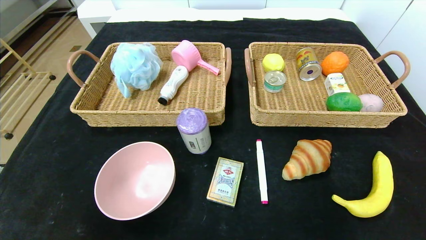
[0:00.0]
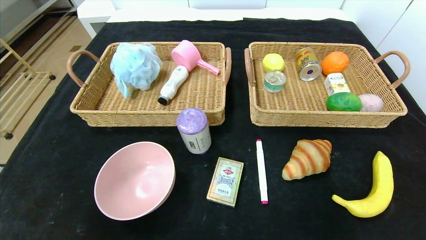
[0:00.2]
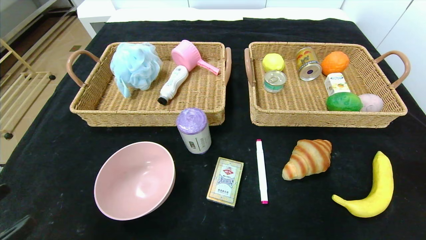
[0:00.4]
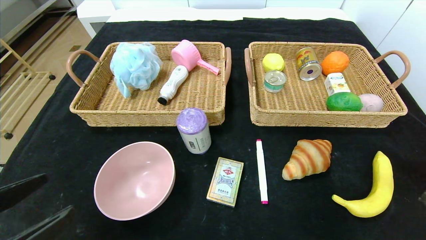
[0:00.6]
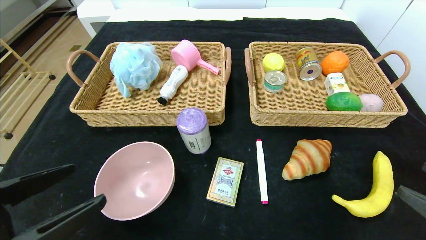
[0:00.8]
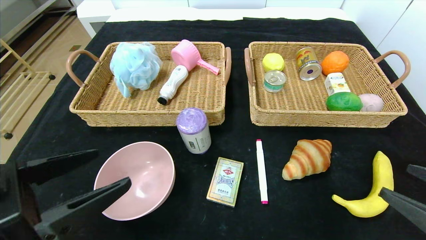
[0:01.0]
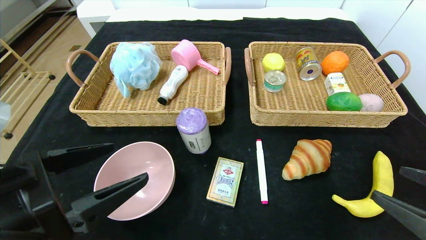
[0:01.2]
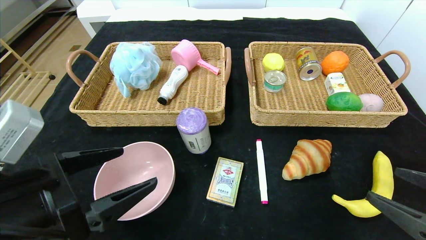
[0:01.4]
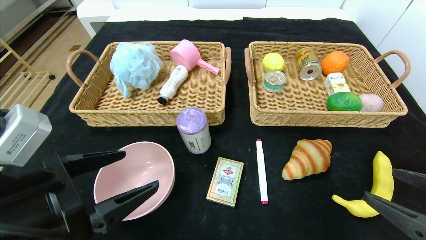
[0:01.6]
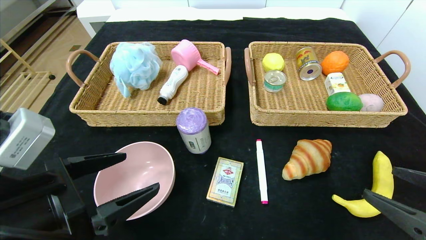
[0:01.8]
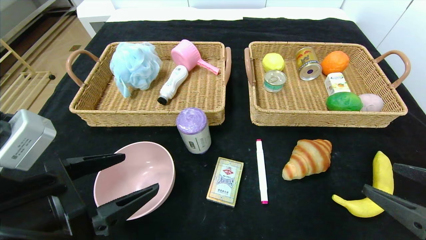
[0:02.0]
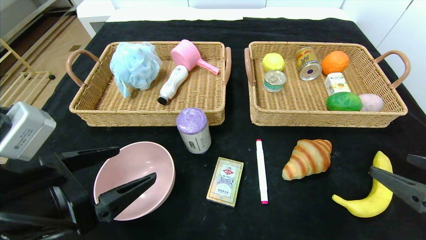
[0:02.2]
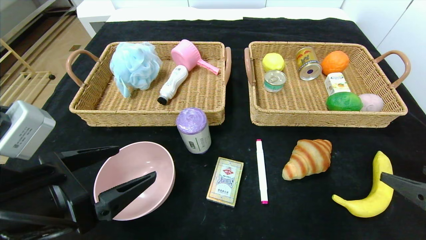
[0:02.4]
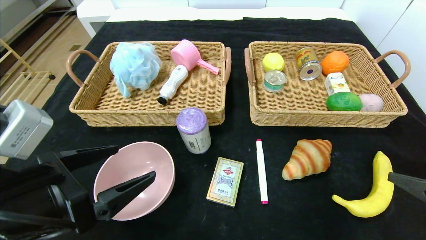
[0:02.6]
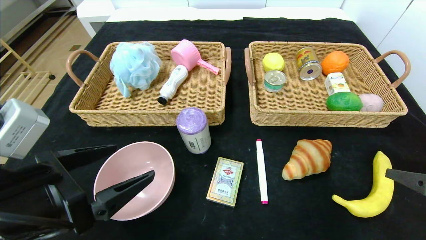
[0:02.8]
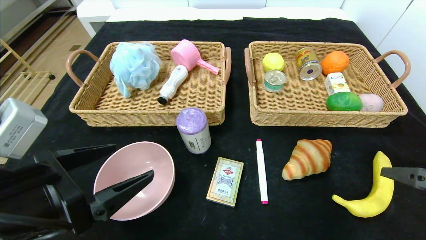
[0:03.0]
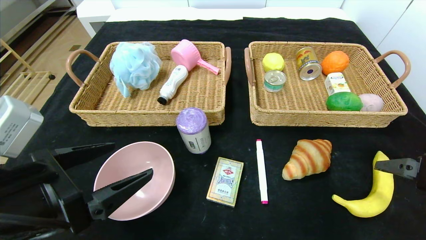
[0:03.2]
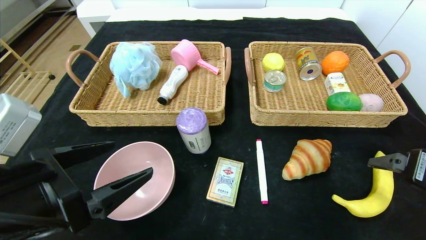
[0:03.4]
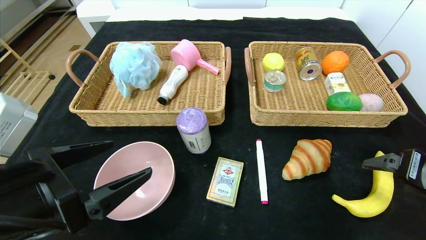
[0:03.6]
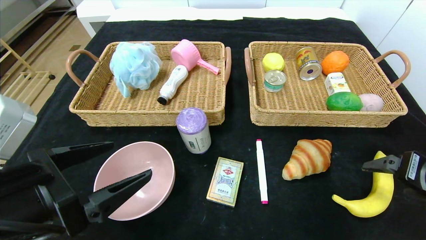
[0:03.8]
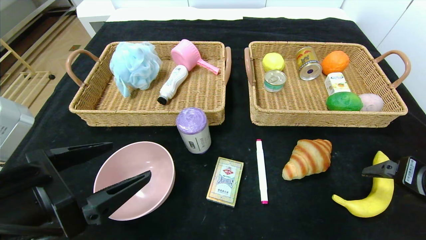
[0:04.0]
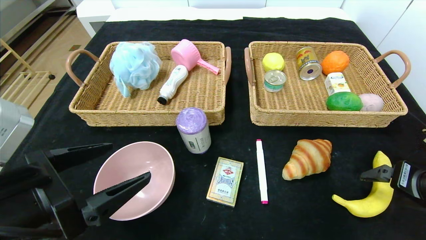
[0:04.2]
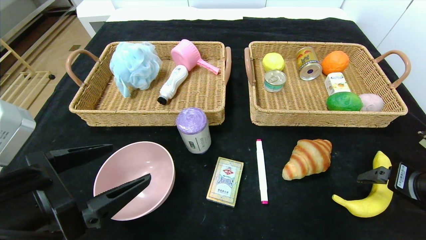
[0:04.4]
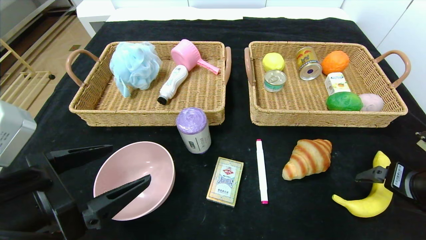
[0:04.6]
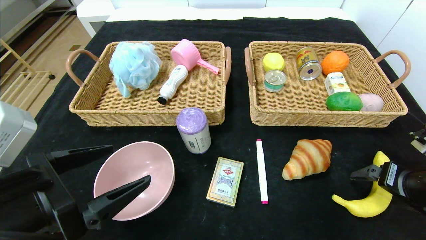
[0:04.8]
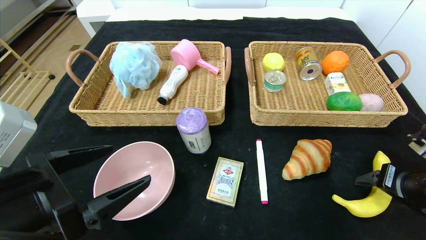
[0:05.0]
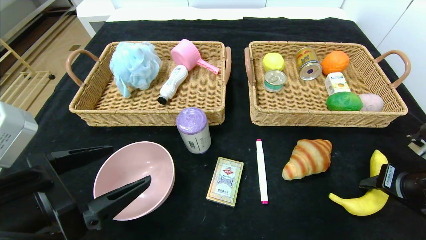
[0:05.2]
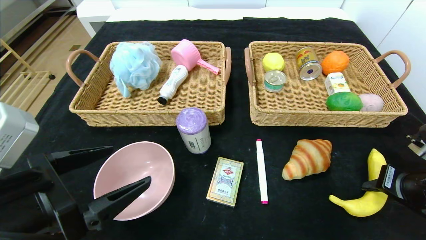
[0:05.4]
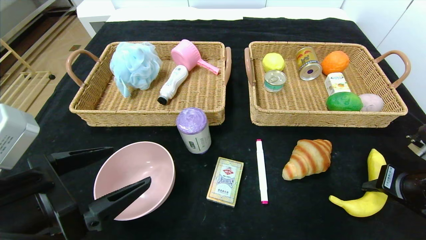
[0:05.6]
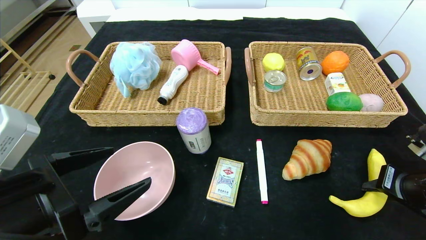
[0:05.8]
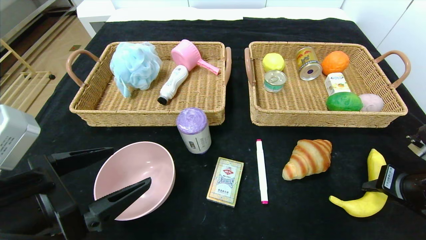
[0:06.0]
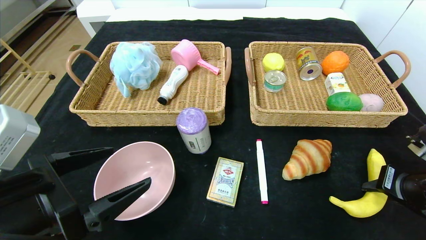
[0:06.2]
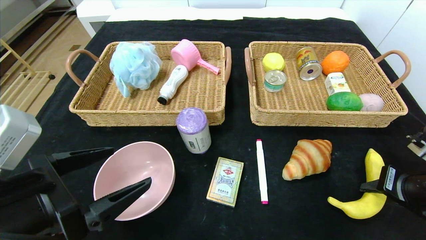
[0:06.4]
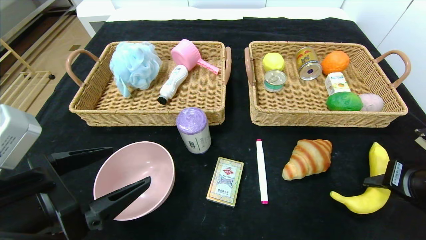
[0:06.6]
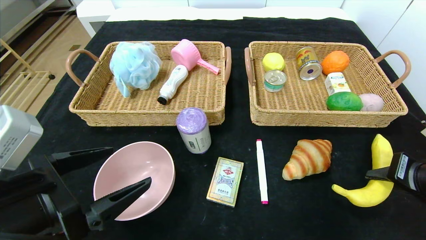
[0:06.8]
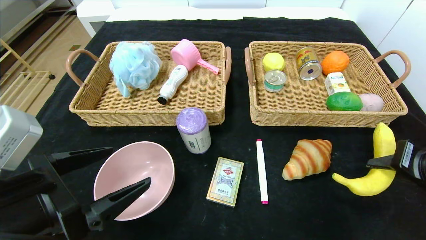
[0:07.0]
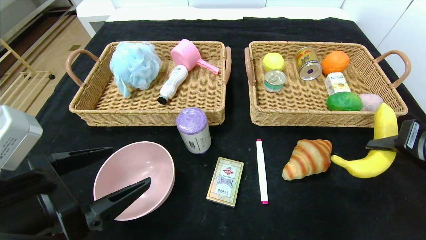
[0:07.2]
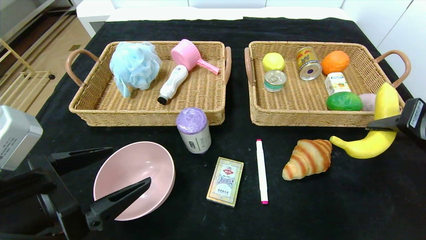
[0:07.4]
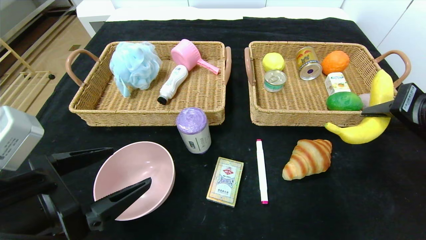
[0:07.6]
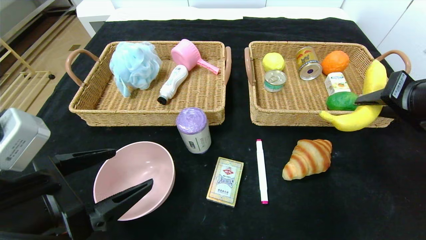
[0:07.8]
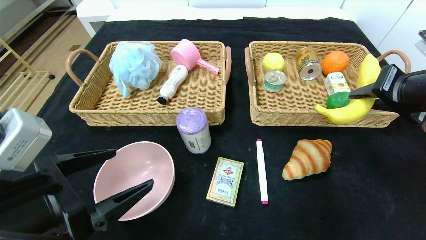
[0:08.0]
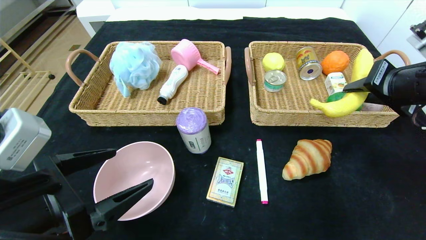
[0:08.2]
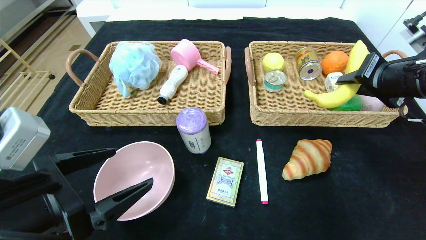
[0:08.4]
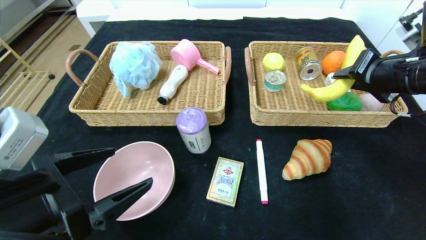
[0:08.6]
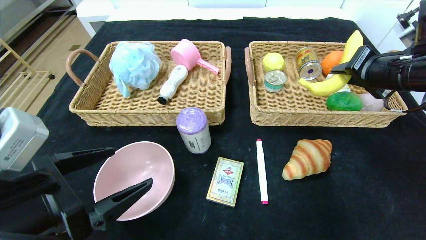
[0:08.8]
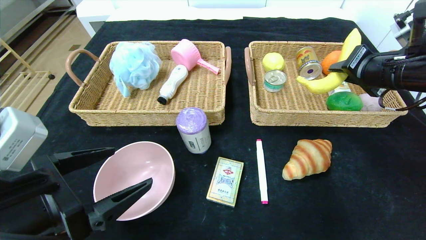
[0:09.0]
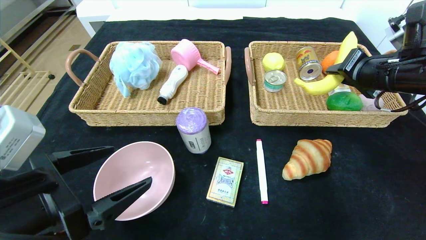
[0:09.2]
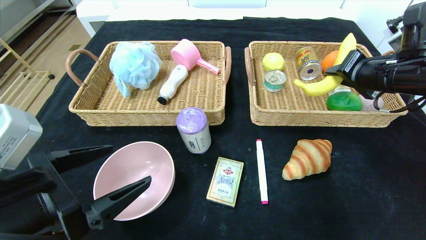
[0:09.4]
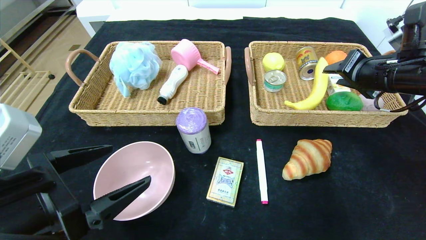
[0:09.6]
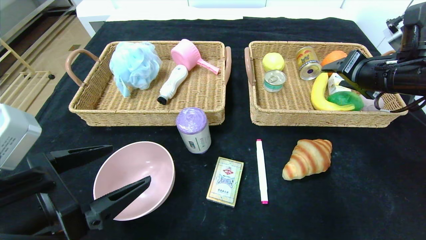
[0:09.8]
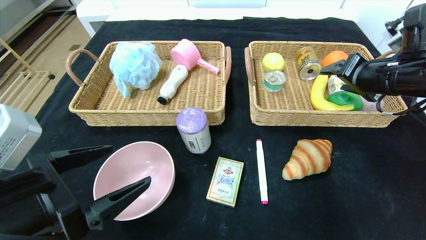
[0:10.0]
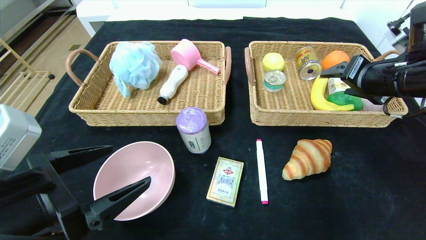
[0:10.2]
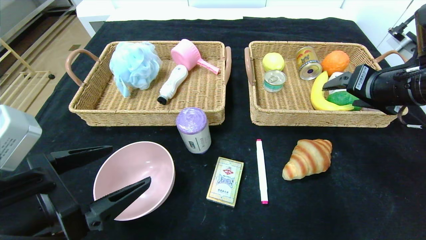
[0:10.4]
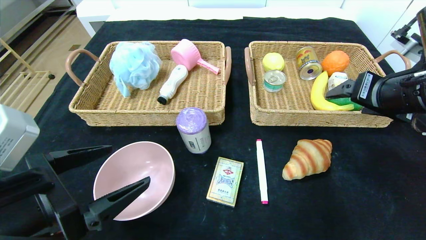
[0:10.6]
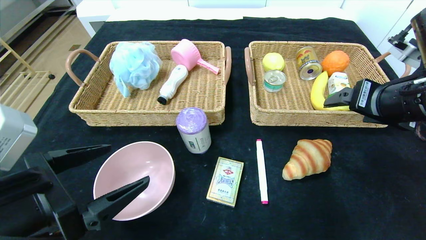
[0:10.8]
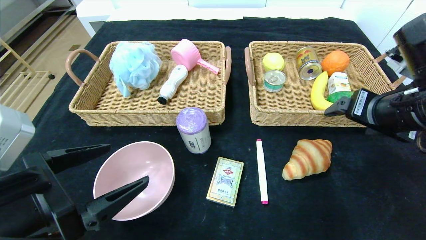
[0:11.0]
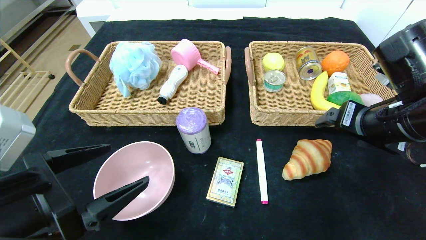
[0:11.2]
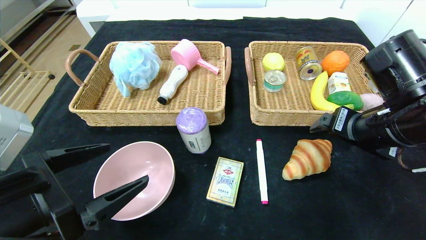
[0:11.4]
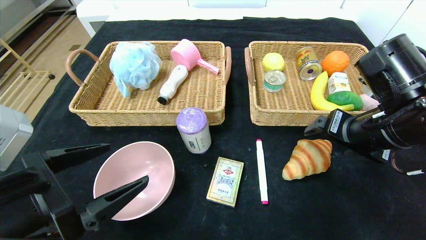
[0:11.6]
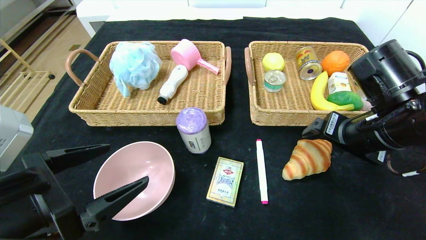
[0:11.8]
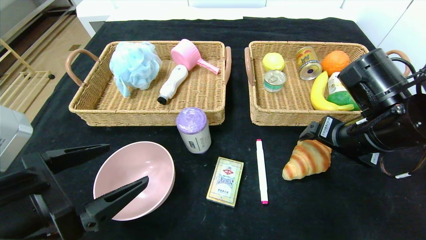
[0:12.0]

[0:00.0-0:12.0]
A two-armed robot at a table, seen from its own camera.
Step, 0.0 to 9.8 s: Grasp the banana and put it in the right basket.
0.0 to 1.6 s: The left gripper shifts approximately 20 cm forward, to the right and upward; the right gripper is displaced forward and to the left by approximately 15 cm.
3.0 to 4.4 s: The right gripper moves forward, approximately 5 cm.
4.4 to 6.0 s: The right gripper closes its fingers.
6.0 to 7.6 s: The right gripper moves upward, about 10 cm.
7.6 to 9.0 s: The right gripper heads forward, covering about 10 cm.
9.0 to 10.4 s: The right gripper opens.
10.4 to 12.0 s: The right gripper shifts some 10 cm to the left and downward.

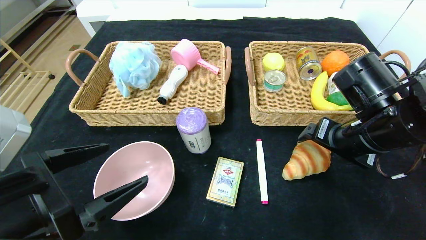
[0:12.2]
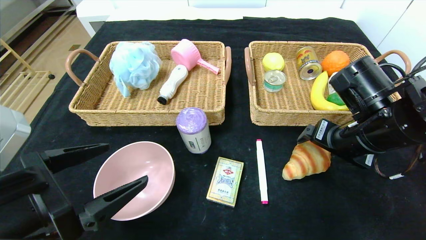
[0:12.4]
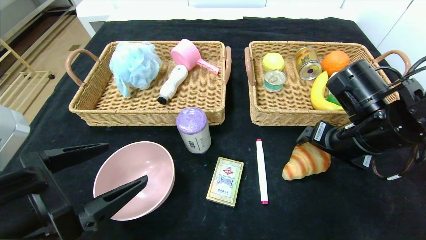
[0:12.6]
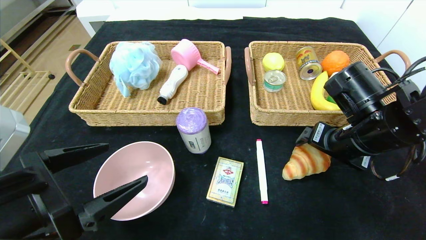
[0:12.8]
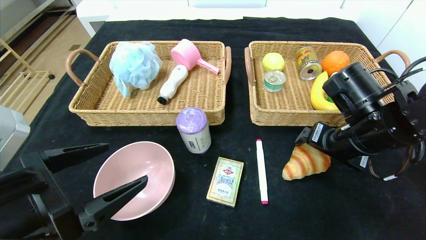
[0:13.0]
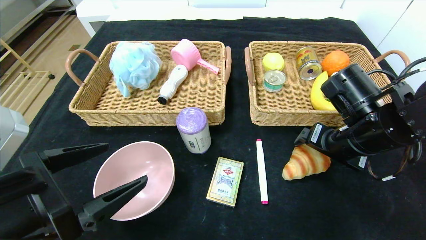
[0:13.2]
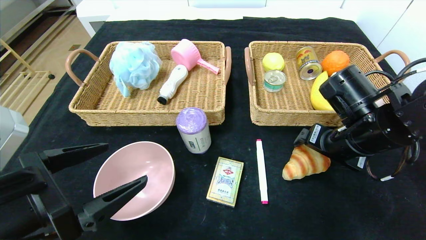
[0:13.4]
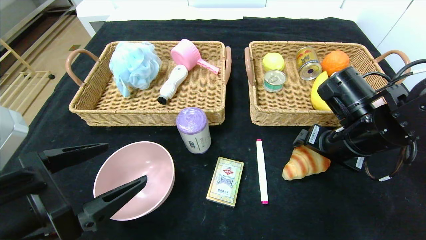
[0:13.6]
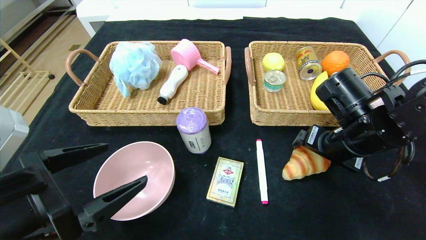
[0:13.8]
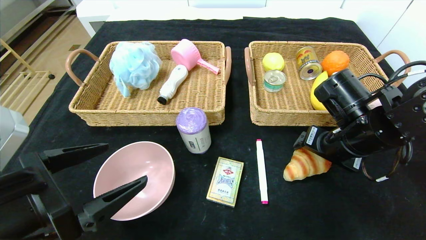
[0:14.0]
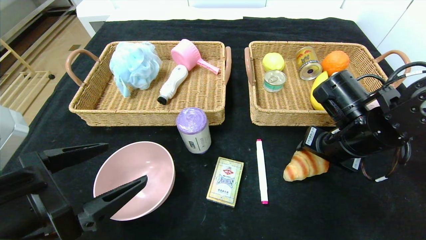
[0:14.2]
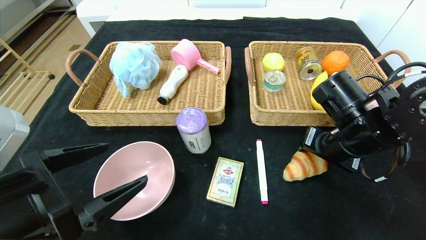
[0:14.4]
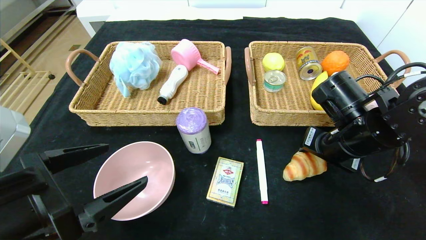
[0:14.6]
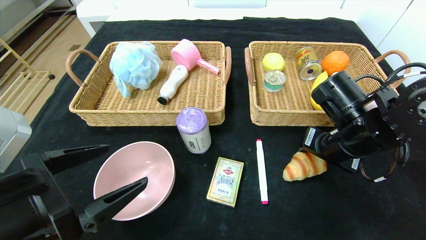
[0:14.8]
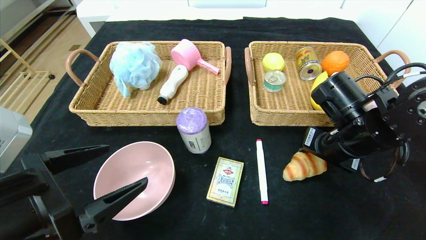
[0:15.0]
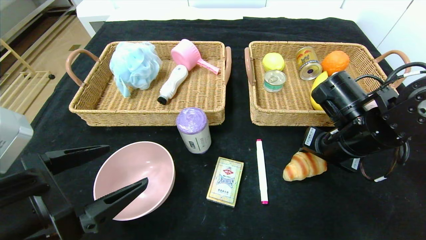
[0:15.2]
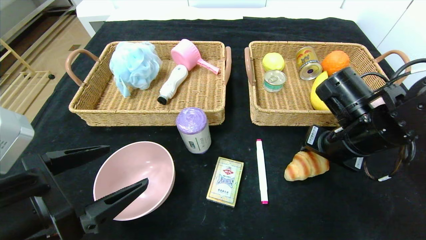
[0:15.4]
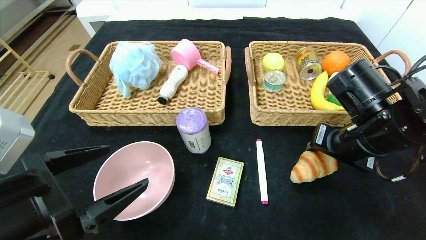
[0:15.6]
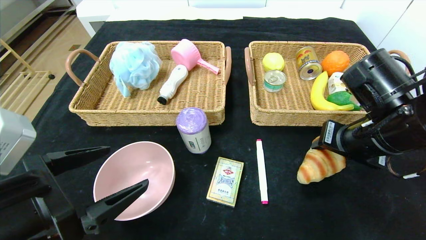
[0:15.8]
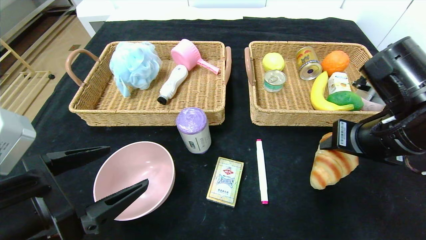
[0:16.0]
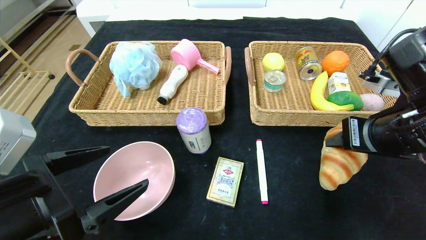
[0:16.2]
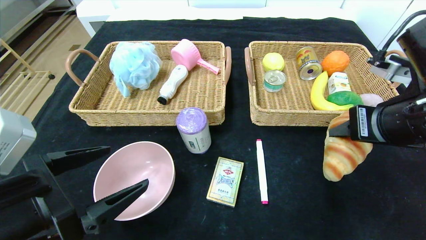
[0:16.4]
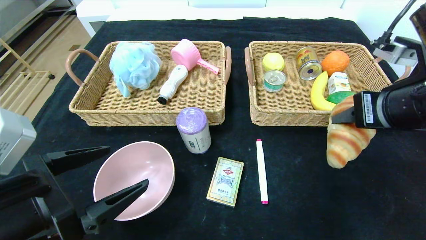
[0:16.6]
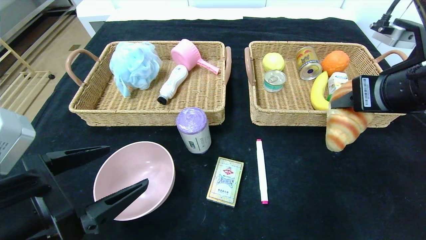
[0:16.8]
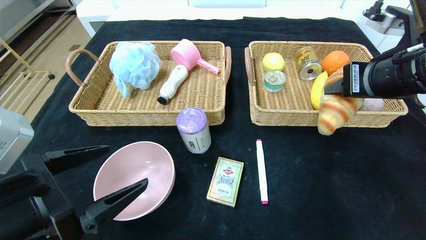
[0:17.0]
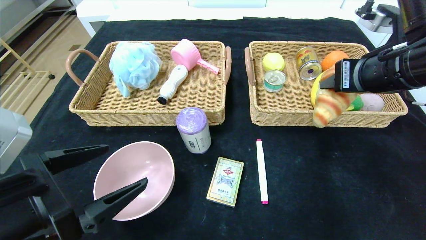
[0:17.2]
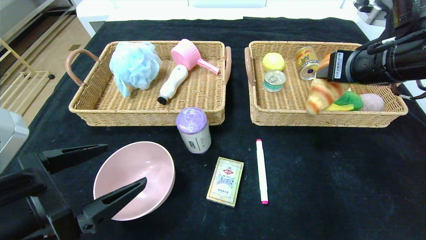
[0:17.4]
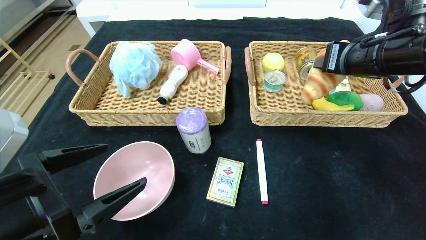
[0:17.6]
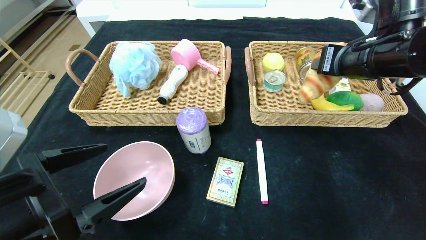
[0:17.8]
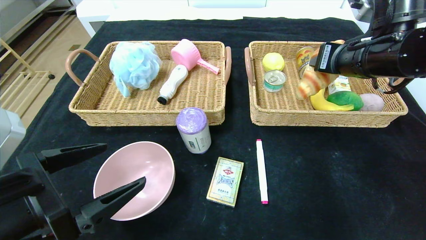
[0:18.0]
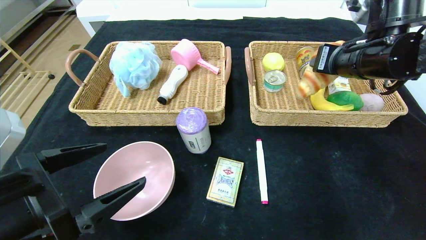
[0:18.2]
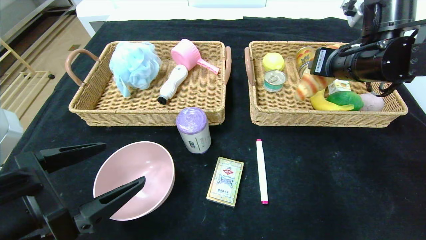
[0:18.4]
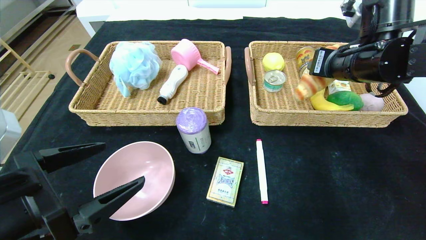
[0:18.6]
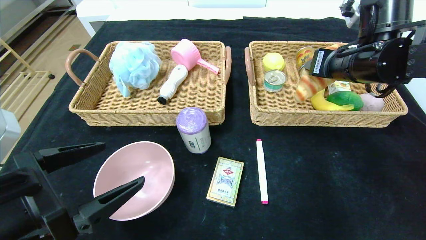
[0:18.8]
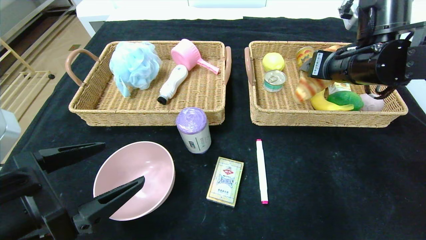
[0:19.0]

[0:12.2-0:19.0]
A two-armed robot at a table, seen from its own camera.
12.2 to 13.6 s: The grippers move only a little.
13.6 to 15.0 s: The right gripper closes up.
15.0 to 16.2 s: The right gripper goes about 10 cm backward and upward.
16.2 to 17.6 s: The right gripper goes roughly 10 cm forward and upward.
17.6 to 19.0 s: The right gripper opens up.
